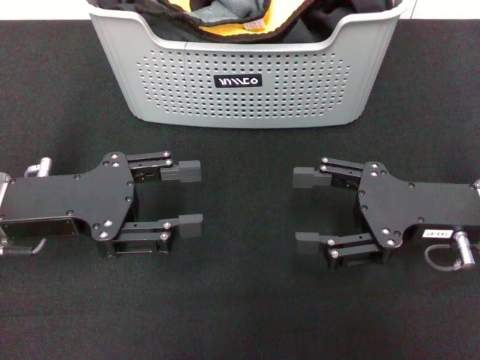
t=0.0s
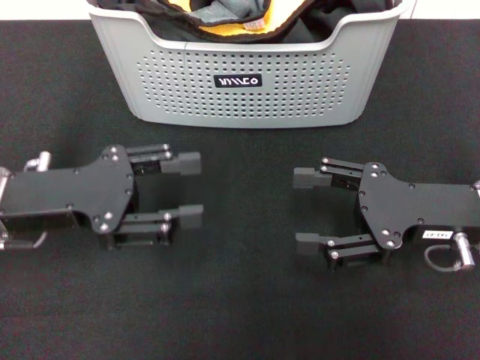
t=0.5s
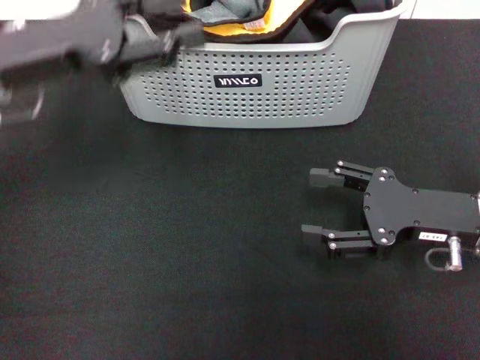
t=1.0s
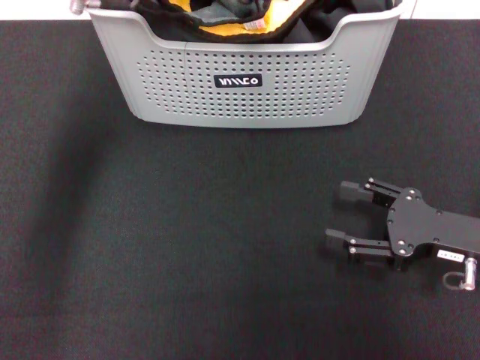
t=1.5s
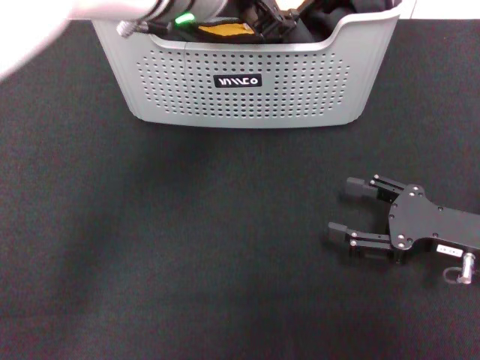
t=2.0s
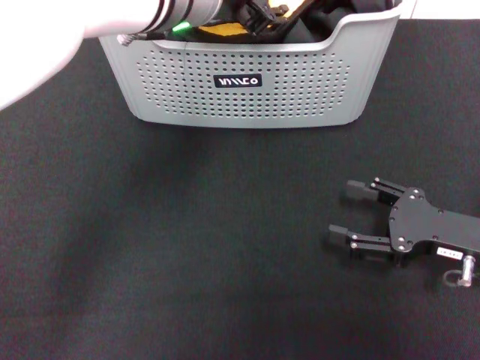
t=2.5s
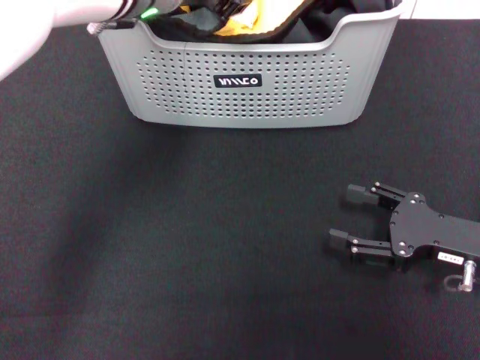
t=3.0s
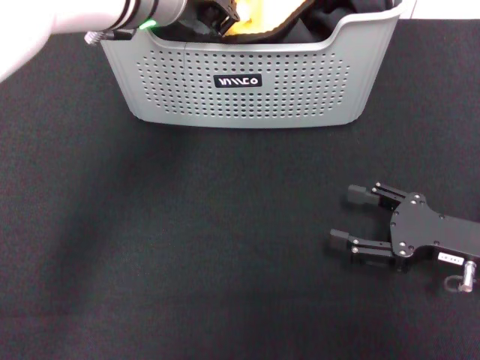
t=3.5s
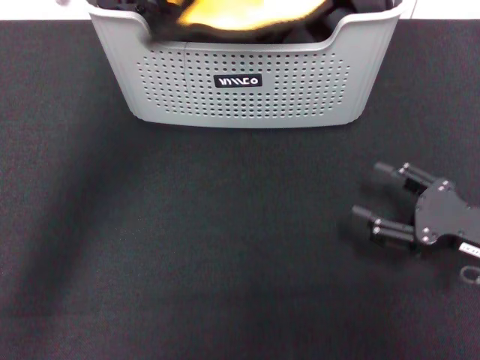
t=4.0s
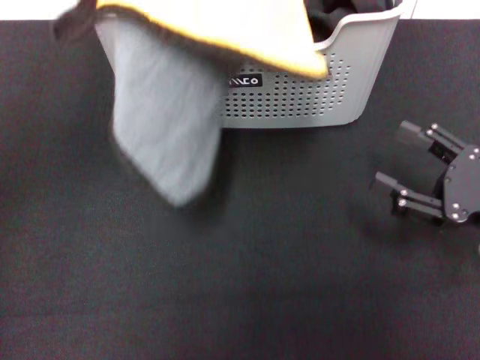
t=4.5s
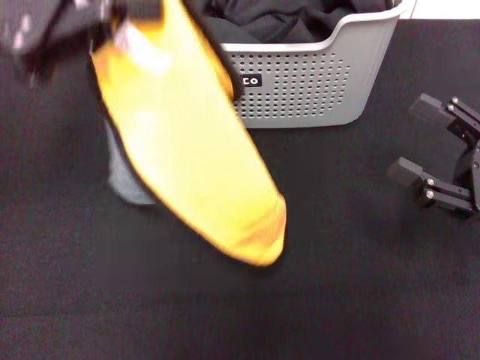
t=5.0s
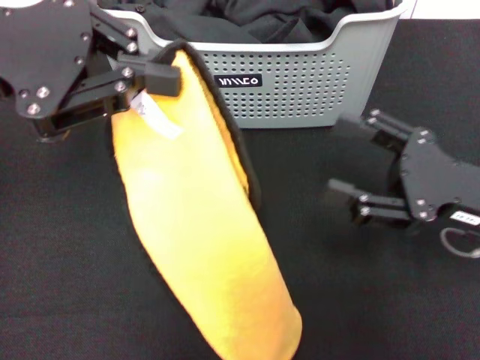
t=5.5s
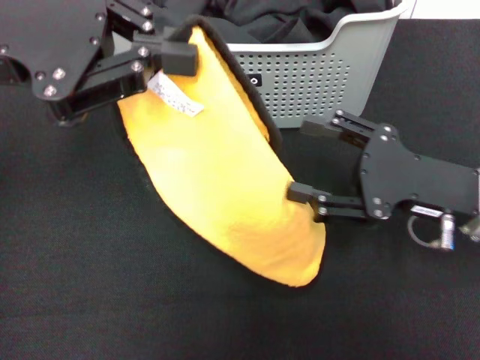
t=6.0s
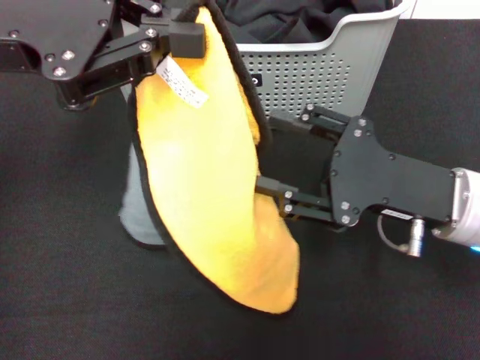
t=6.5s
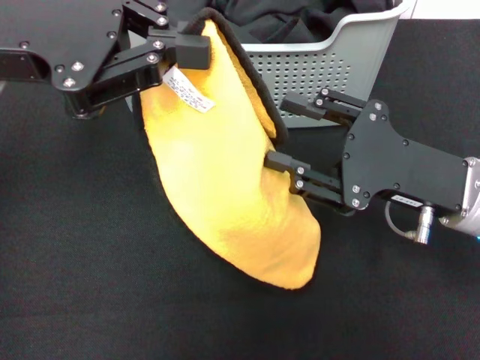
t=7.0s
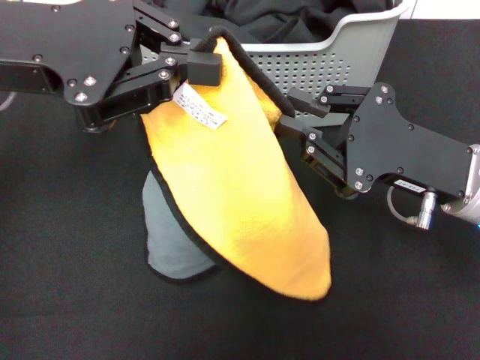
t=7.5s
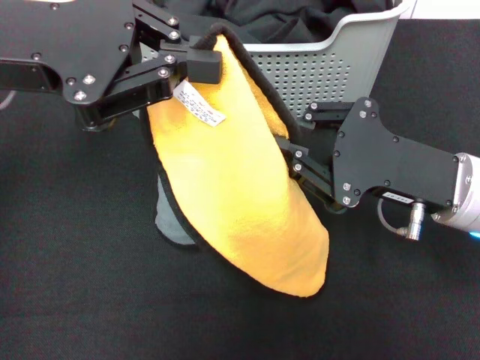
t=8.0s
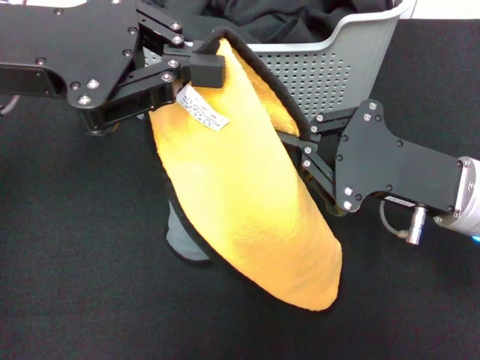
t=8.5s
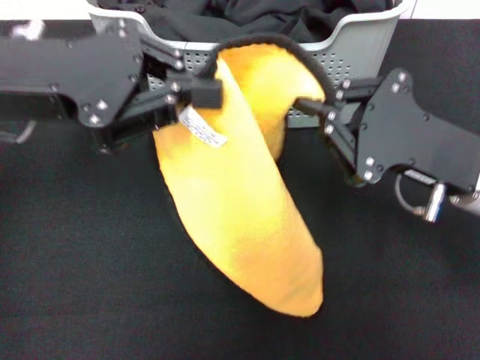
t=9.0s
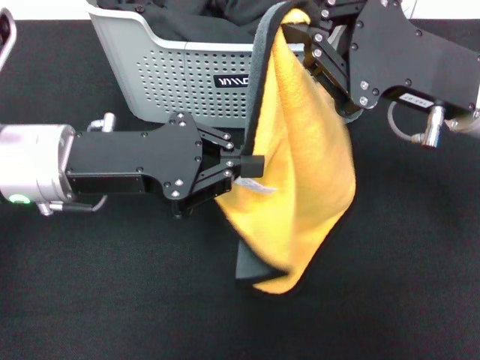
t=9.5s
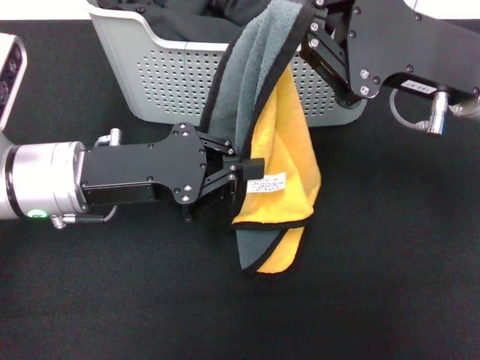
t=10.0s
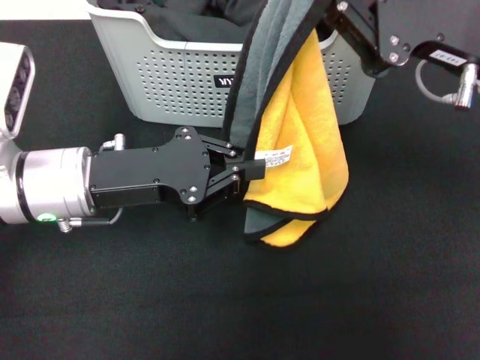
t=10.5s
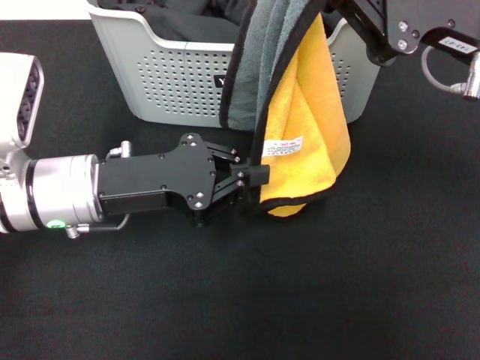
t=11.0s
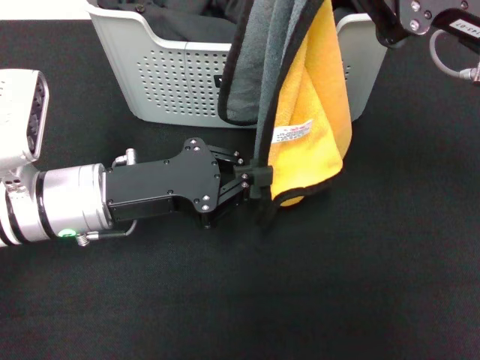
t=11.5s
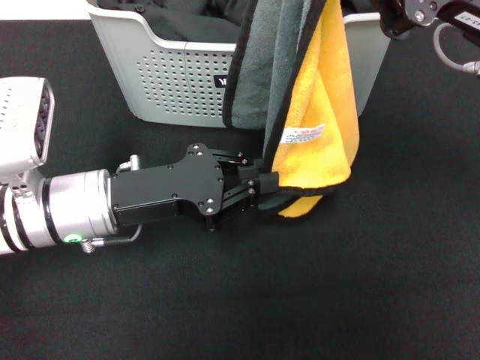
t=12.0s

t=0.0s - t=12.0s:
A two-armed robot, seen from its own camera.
Task of the whole recording: pick up the towel from the storage box and lay it flat on the black tablecloth.
Step, t=0.0s - t=3.5s: Pick up a towel with the left gripper.
Step, t=4.0s - t=8.0s: Spread the towel flat with the left gripper.
t=0.0s - t=2.0s: The right gripper moves downward, some 5 cm, while the left gripper goes some 25 cm to the right, upward and forward.
t=2.0s - t=4.0s: The left gripper heads to the left, covering about 5 cm, and closes.
t=4.0s - t=6.0s: The left gripper moves to the left, approximately 10 cm. Meanwhile the right gripper heads to the left, covering about 5 cm.
t=6.0s - t=8.0s: The right gripper closes its fingers.
t=8.0s - t=10.0s: The left gripper moves downward, roughly 15 cm. Meanwhile the right gripper heads upward, covering some 10 cm.

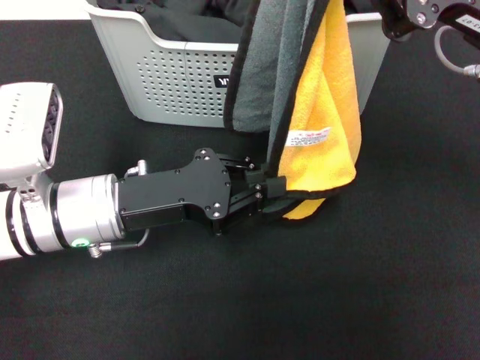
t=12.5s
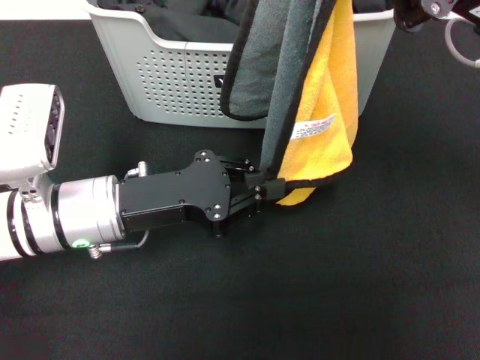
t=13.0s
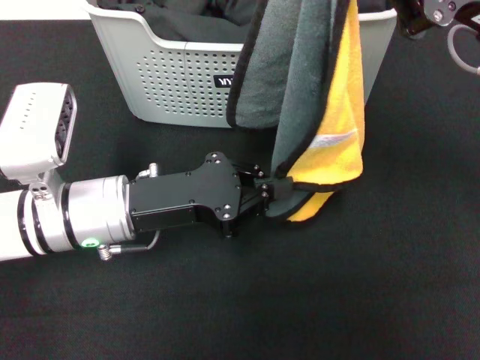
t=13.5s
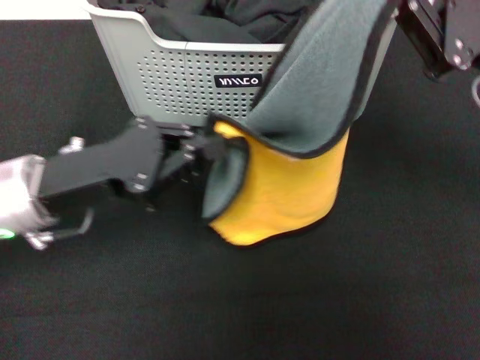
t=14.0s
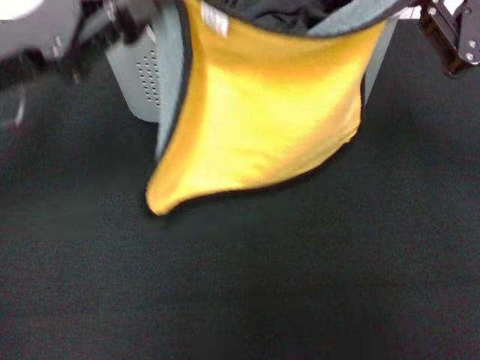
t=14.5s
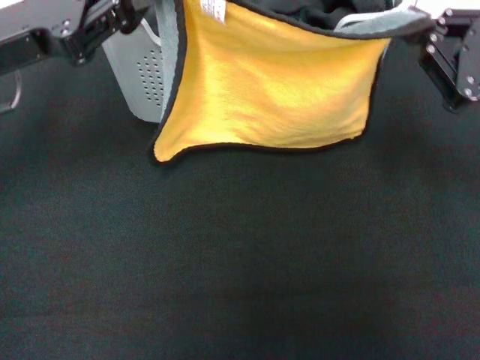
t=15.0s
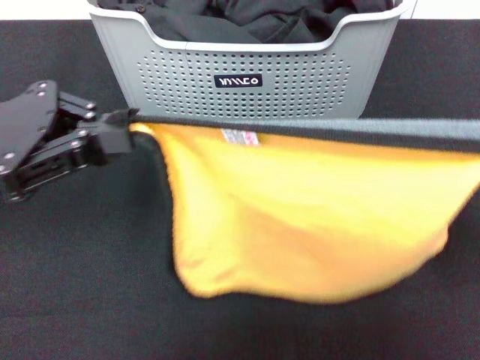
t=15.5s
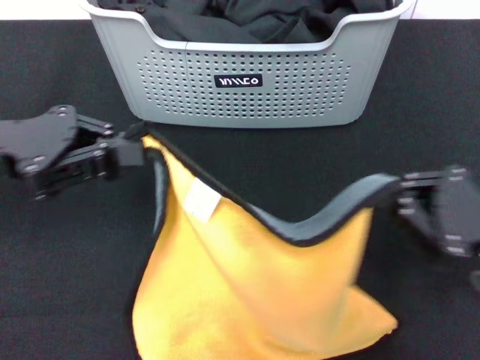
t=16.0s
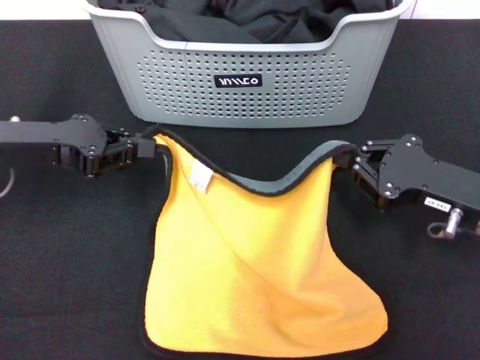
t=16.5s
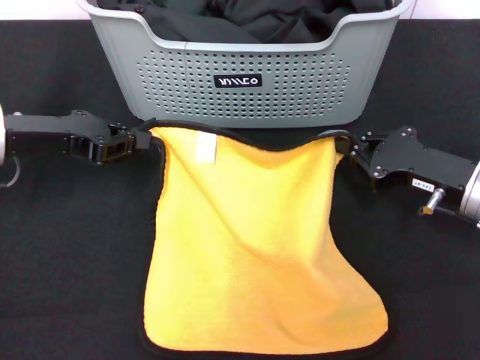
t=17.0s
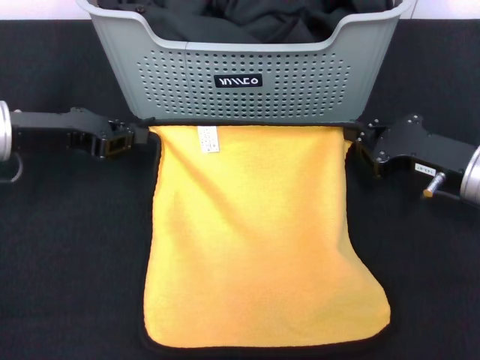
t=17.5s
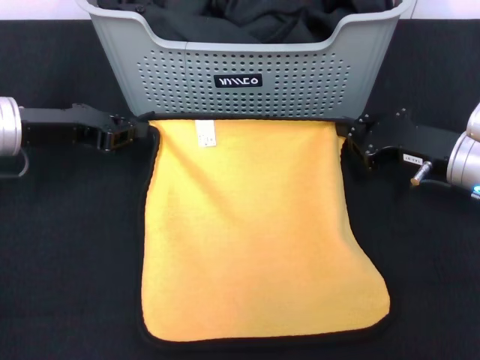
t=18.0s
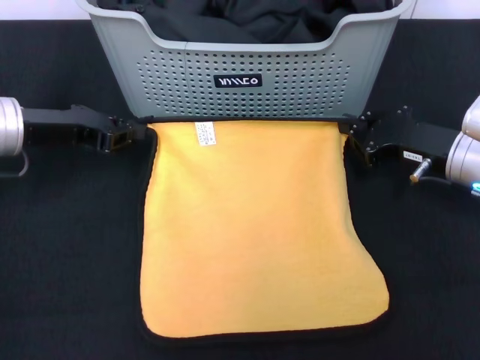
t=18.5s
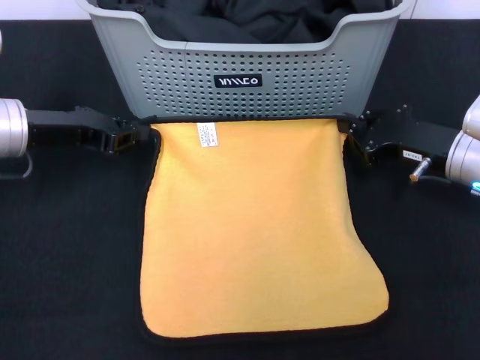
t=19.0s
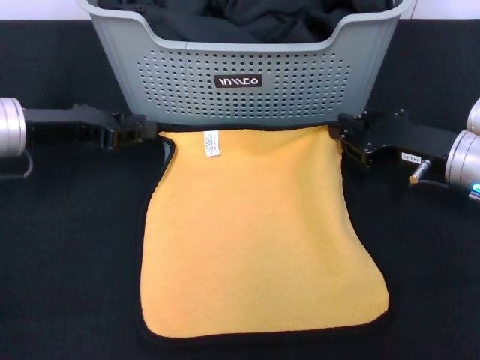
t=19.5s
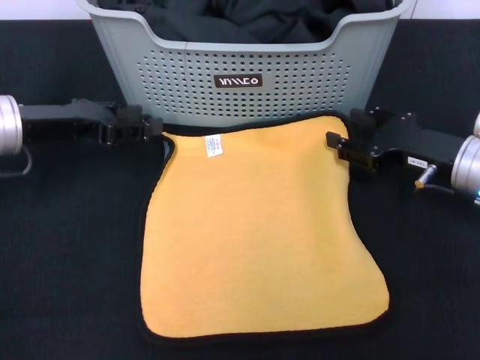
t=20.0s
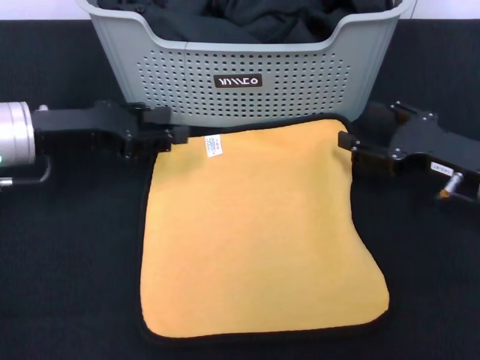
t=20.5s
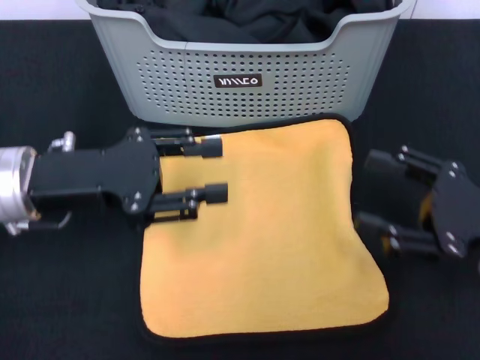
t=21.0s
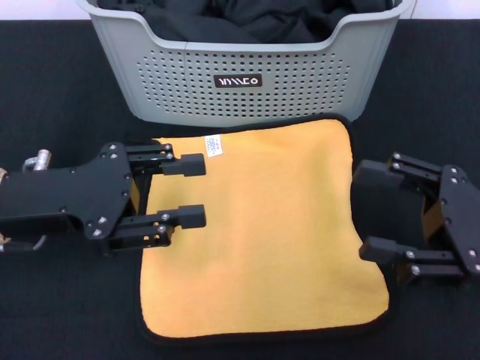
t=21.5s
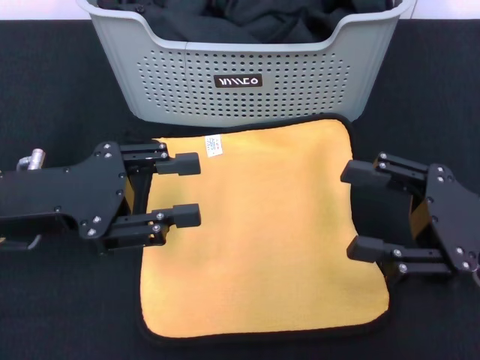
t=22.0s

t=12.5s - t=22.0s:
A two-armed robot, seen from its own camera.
Task of the whole recording: pick up the towel from the storage box and lay it flat on the black tablecloth.
Step, t=12.5s - t=19.5s: Spread the towel flat with the right gripper.
t=12.5s - t=14.5s: The right gripper shifts roughly 5 cm to the right. Meanwhile the left gripper heads upward and to the left, covering approximately 15 cm.
t=14.5s - t=16.5s: The right gripper shifts some 10 cm downward, while the left gripper changes place by approximately 5 cm.
t=16.5s - t=18.0s: The right gripper shifts about 5 cm forward.
t=18.0s - t=20.0s: The left gripper opens. Meanwhile the right gripper opens its fingers.
t=20.0s - t=22.0s: The grippers both shift backward by some 10 cm. The right gripper opens.

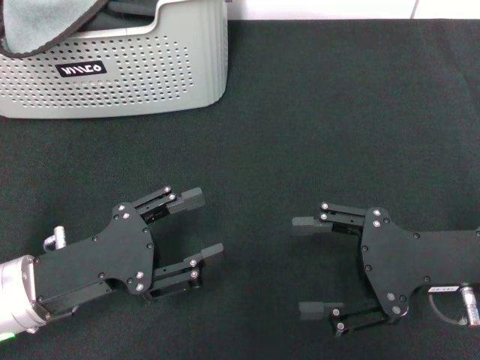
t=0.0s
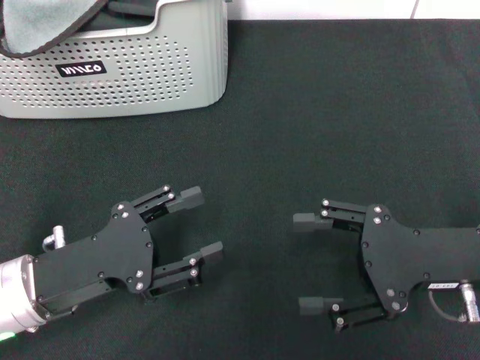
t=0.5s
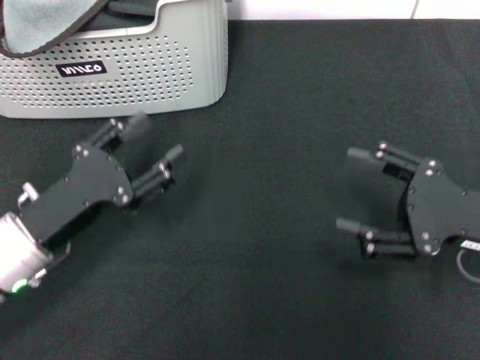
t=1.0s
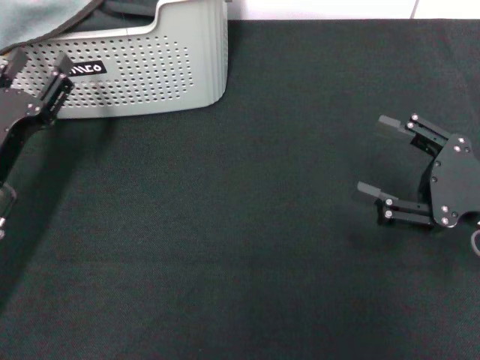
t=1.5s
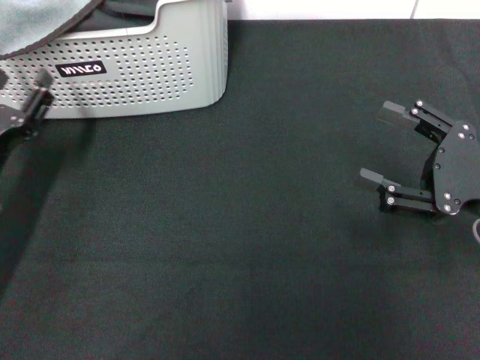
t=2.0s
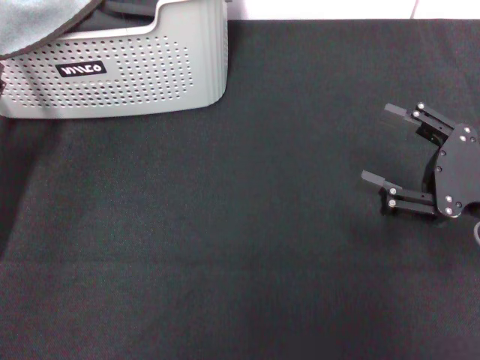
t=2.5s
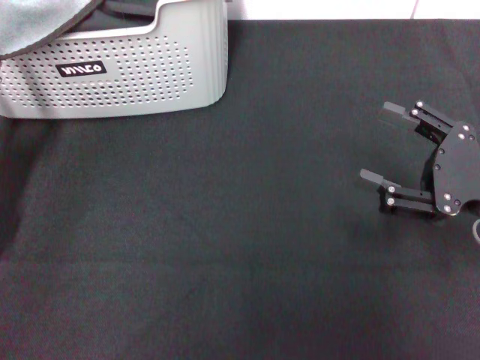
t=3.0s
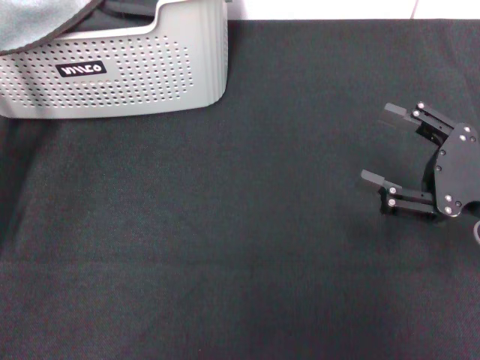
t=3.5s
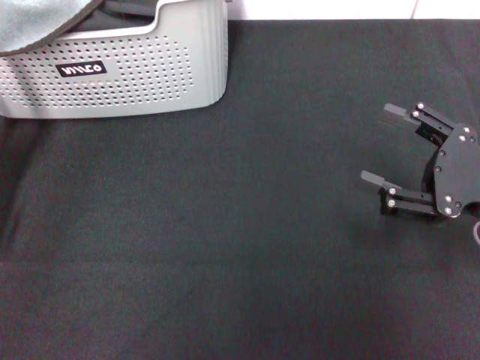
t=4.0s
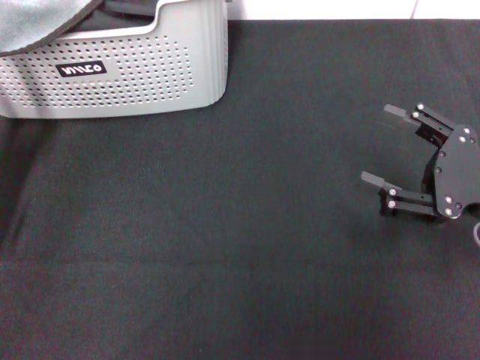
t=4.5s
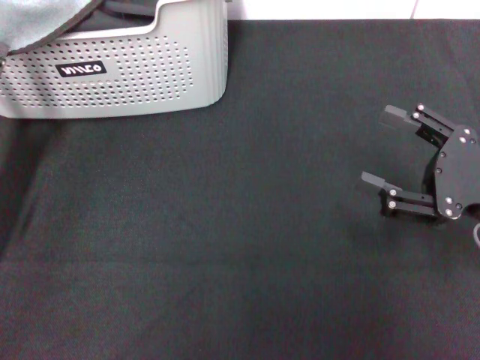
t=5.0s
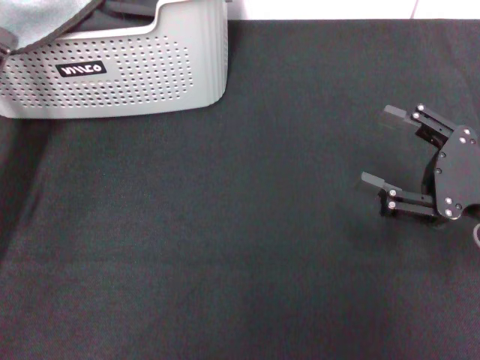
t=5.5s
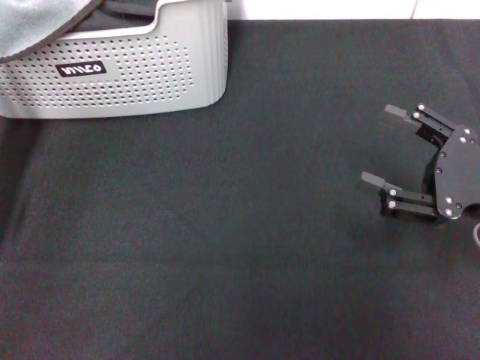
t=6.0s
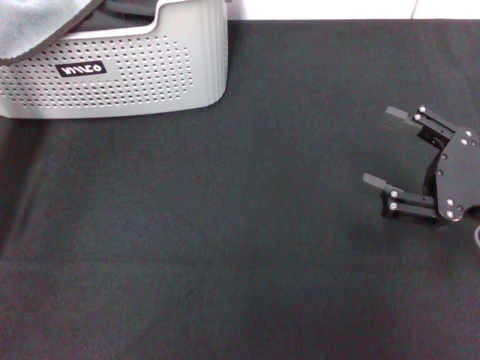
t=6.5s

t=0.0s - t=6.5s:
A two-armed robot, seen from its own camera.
Task of the whole recording: pick up the towel from the storage box and lay it flat on the black tablecloth.
t=0.0s - t=2.0s: The left gripper moves to the left and forward, about 10 cm.
t=4.5s - t=6.5s: The left gripper closes.
